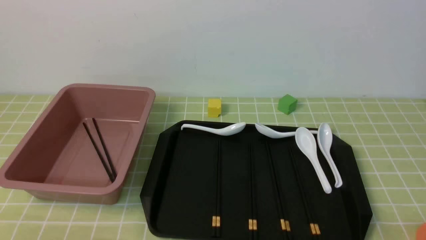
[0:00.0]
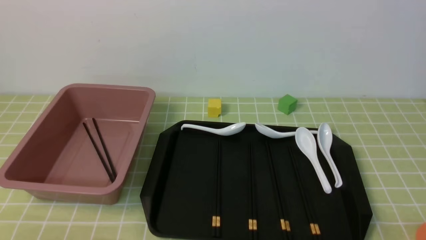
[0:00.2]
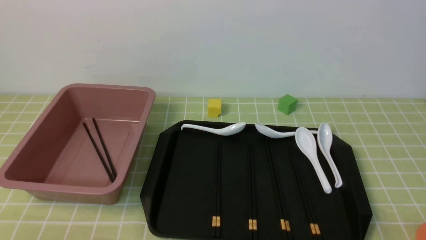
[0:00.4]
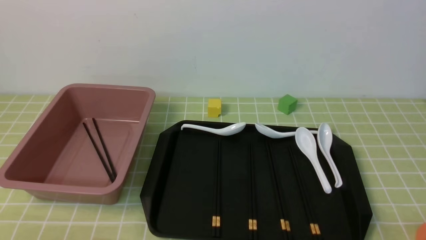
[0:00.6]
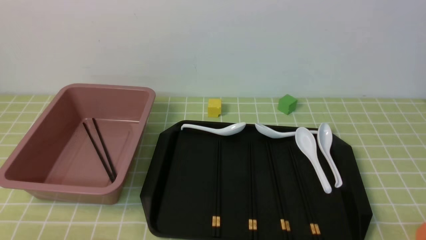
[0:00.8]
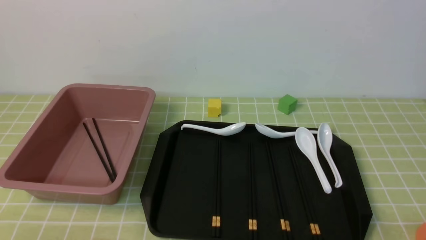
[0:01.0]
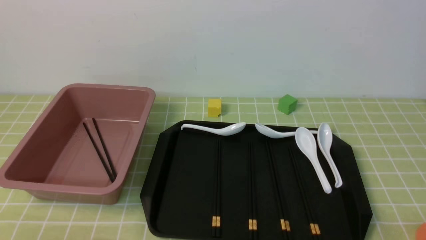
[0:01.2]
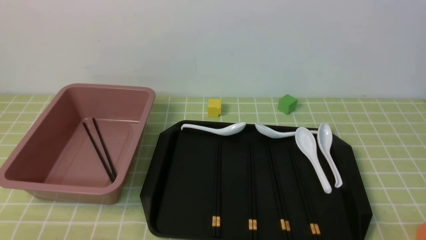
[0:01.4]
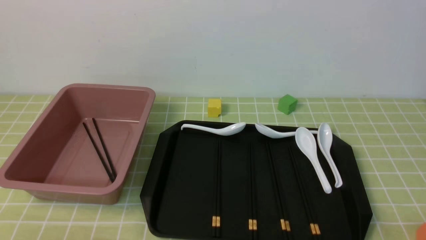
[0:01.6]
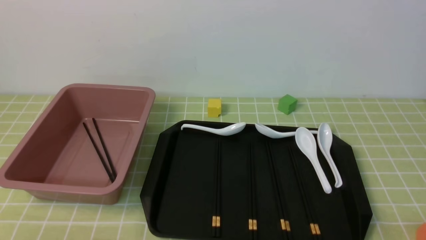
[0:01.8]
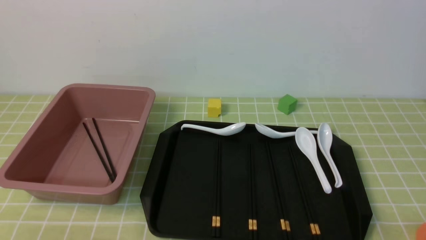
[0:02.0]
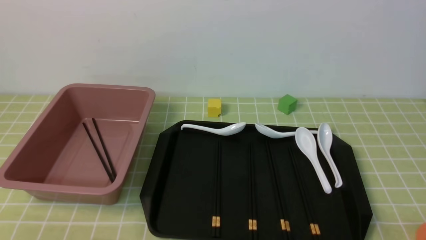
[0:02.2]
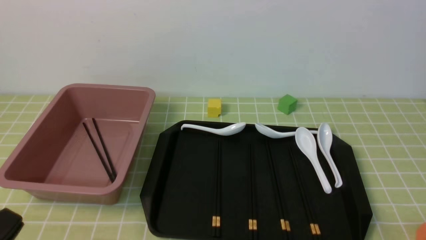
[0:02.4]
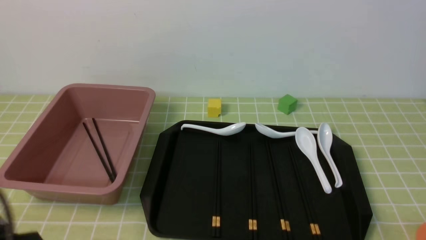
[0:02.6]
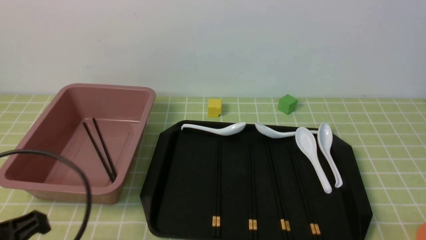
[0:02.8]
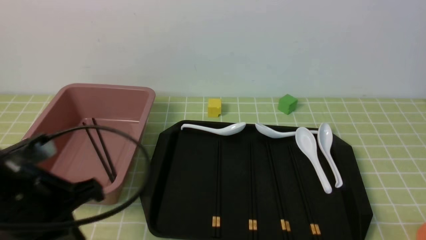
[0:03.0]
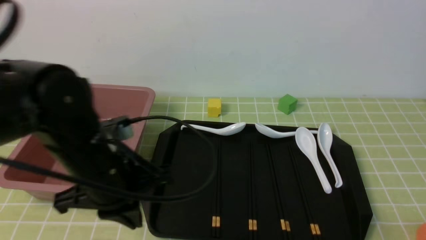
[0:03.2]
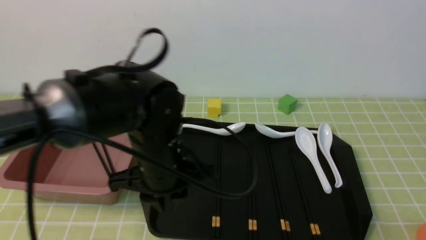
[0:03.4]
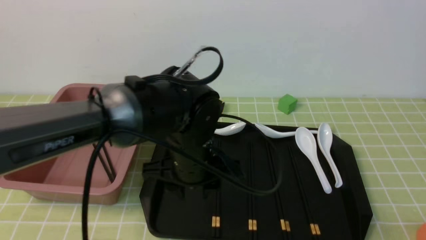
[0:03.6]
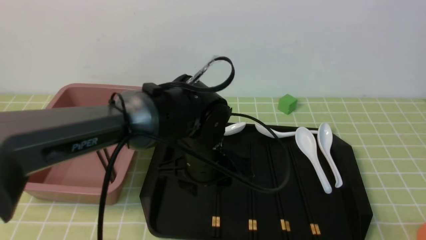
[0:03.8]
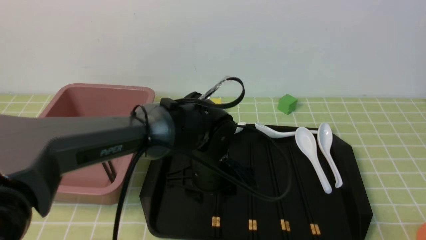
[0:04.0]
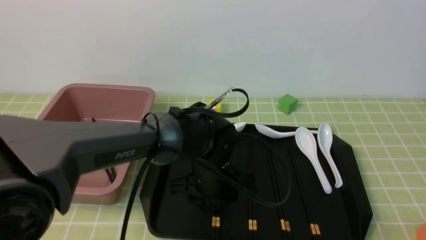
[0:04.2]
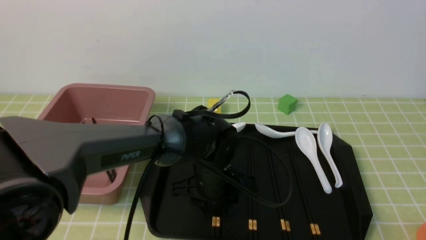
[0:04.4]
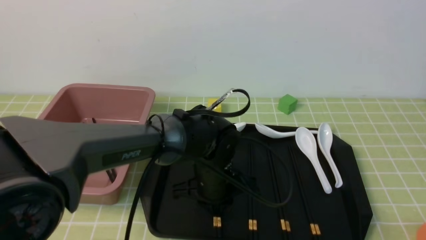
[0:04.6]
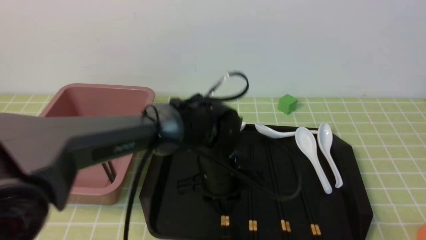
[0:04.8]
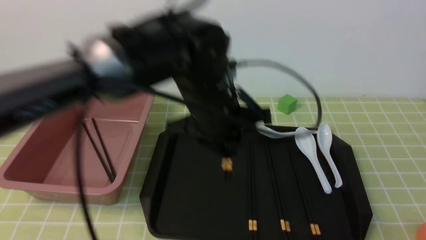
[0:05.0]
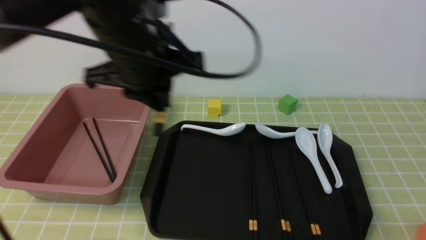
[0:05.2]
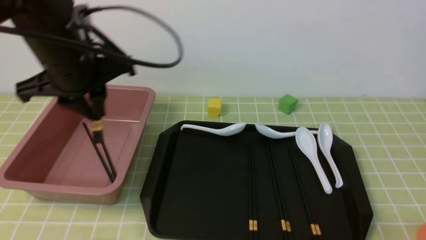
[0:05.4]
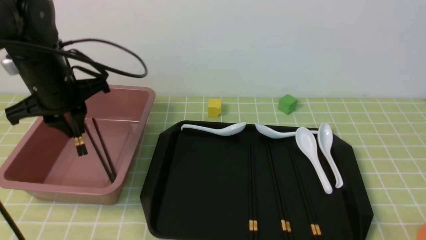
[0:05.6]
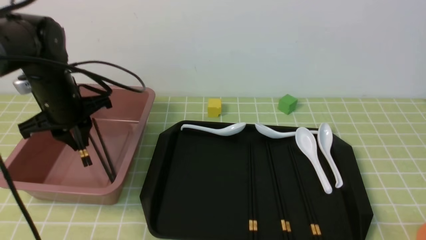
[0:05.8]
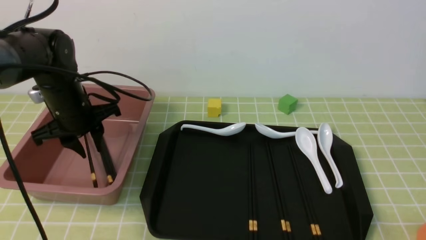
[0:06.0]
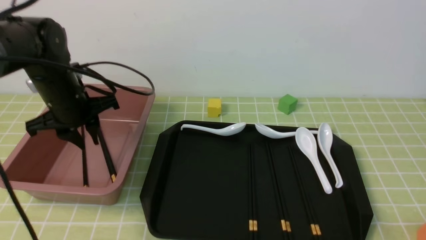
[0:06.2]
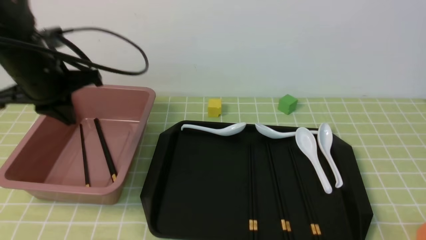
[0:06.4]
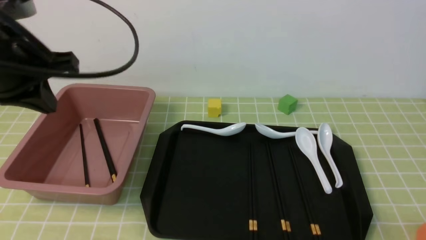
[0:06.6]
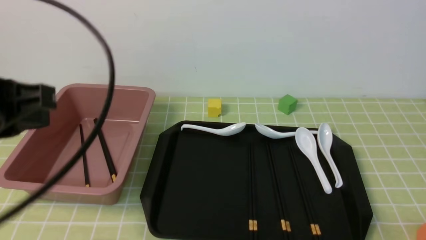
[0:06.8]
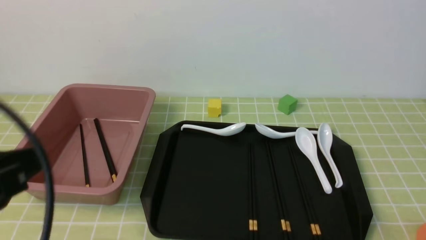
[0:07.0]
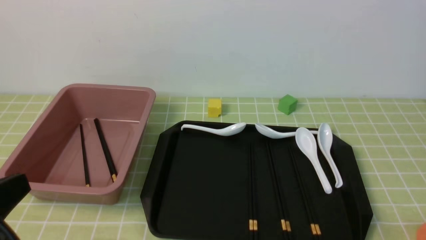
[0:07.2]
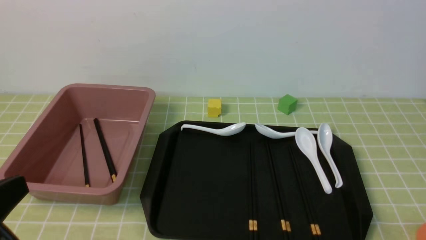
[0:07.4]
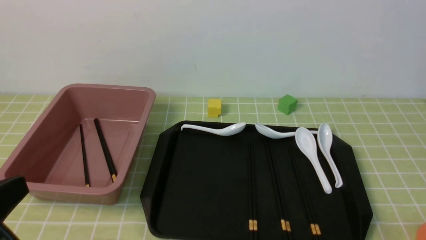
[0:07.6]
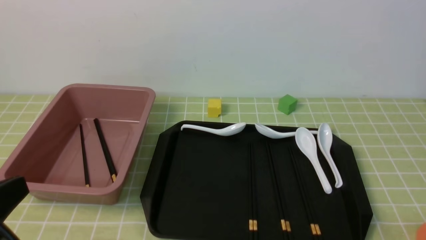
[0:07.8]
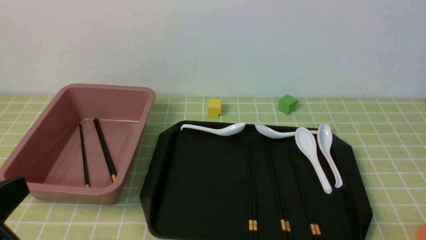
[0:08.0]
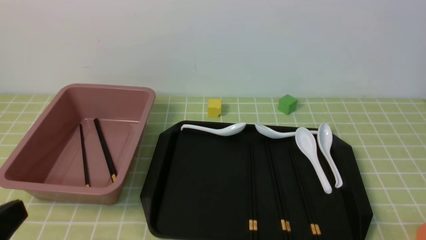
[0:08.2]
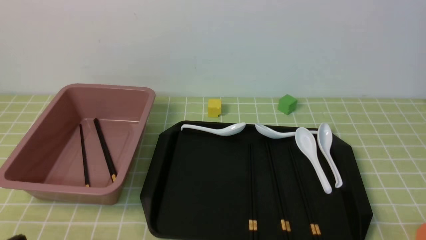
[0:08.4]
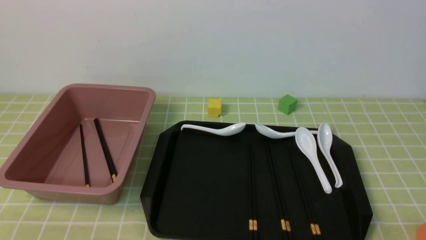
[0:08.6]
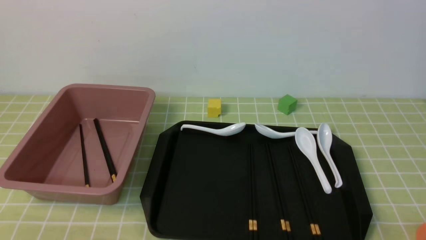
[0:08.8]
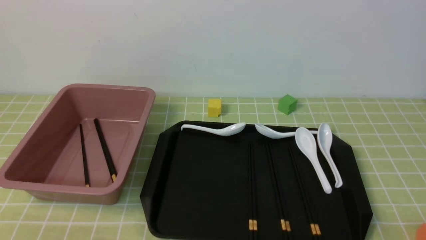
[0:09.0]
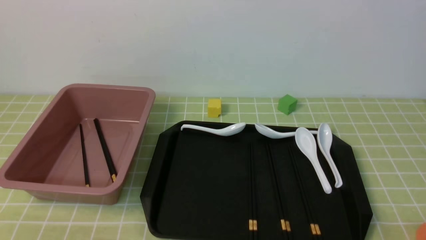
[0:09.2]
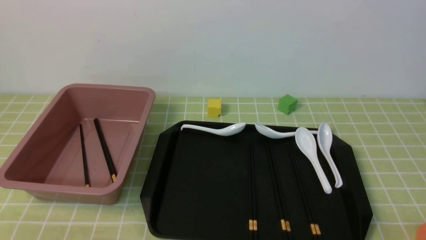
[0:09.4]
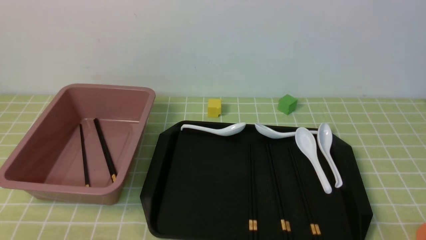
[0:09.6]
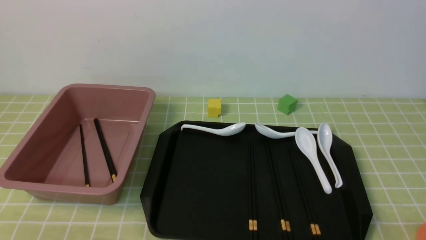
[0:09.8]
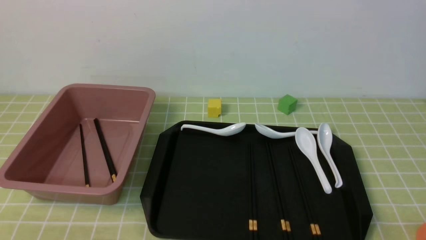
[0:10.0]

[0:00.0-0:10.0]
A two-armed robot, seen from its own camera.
Step, 0:00.0 to 0:05.0: use the left arm to grab a pair of chopsticks.
Step, 0:05.2 to 0:06.2: use the left arm to put the chopsticks into the lunch box.
0:01.4 to 0:02.8: The left gripper travels upward and forward by roughly 10 cm.
0:02.8 to 0:04.2: The left gripper shifts some 35 cm to the right, forward and downward, and opens.
0:04.2 to 0:05.8: The left gripper goes some 25 cm to the left and upward, and closes.
0:05.8 to 0:07.2: The left gripper shifts some 30 cm backward, and closes.
0:07.2 to 0:08.6: The left gripper heads downward, covering some 10 cm.
